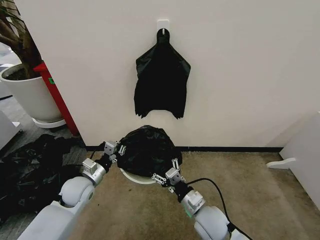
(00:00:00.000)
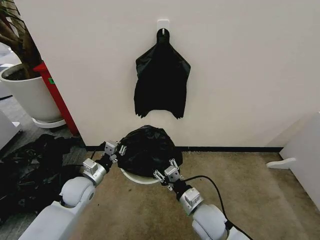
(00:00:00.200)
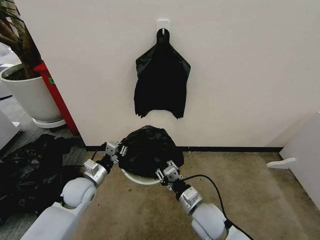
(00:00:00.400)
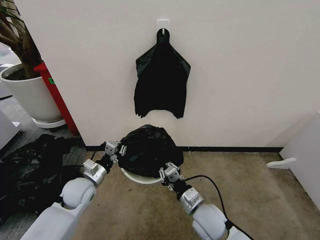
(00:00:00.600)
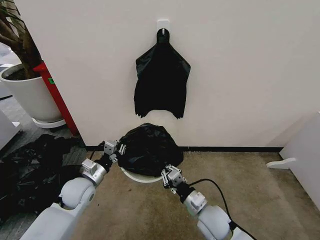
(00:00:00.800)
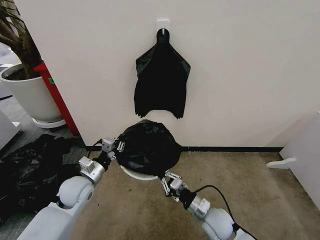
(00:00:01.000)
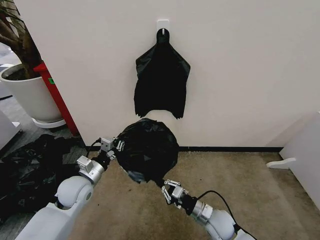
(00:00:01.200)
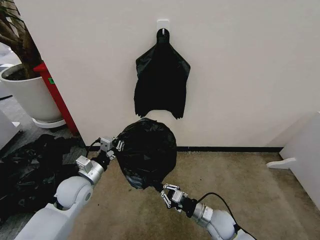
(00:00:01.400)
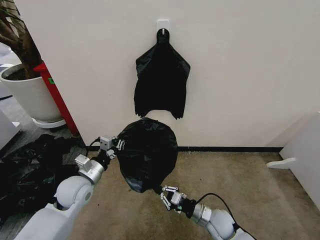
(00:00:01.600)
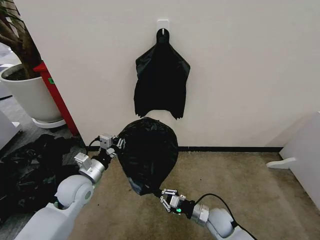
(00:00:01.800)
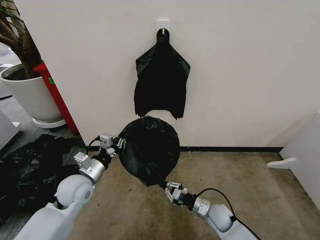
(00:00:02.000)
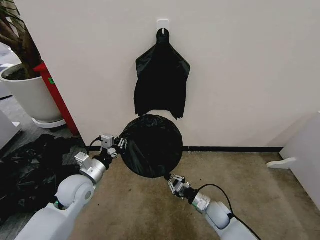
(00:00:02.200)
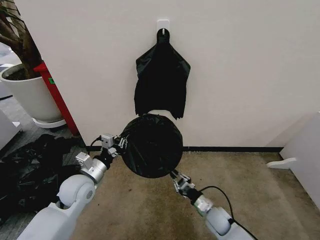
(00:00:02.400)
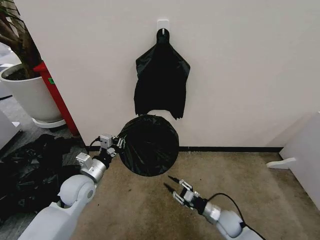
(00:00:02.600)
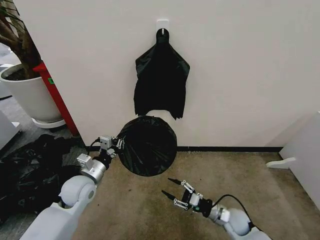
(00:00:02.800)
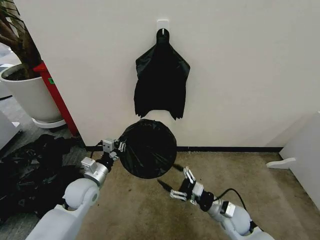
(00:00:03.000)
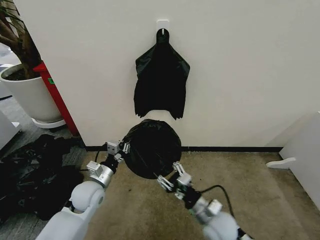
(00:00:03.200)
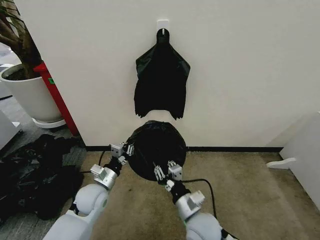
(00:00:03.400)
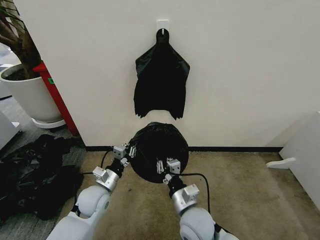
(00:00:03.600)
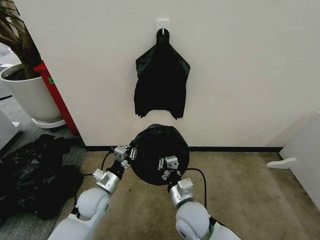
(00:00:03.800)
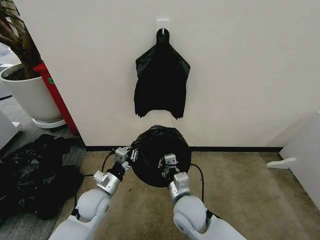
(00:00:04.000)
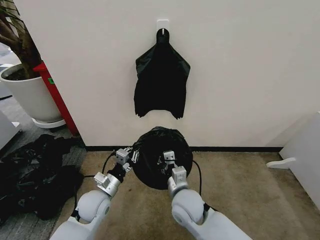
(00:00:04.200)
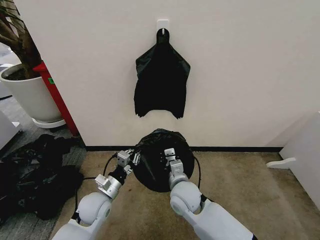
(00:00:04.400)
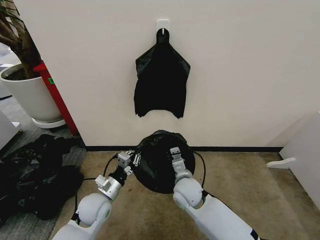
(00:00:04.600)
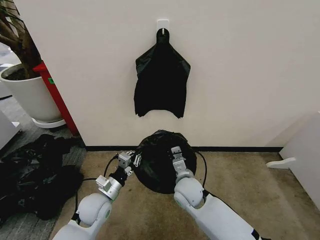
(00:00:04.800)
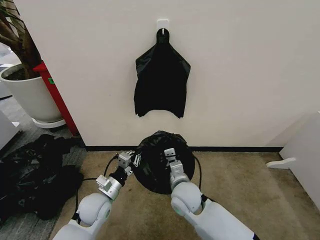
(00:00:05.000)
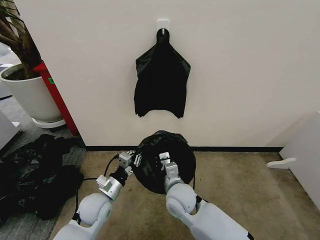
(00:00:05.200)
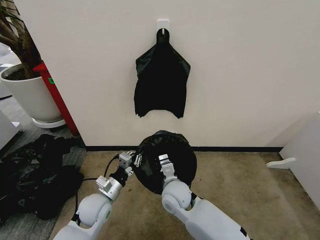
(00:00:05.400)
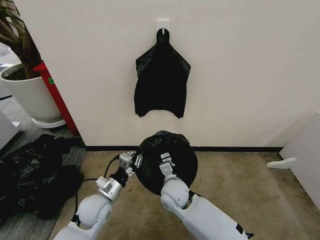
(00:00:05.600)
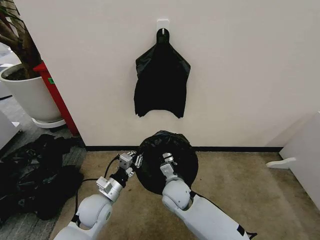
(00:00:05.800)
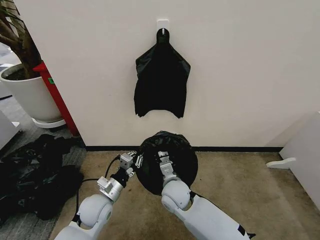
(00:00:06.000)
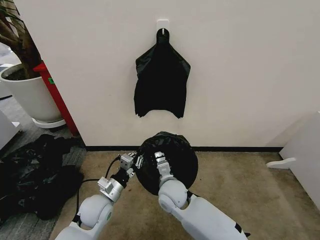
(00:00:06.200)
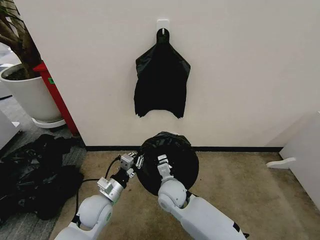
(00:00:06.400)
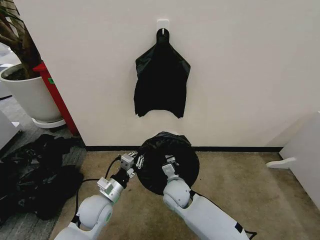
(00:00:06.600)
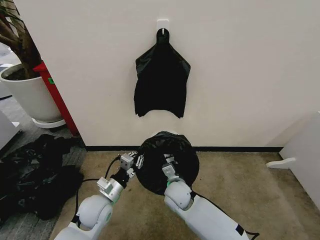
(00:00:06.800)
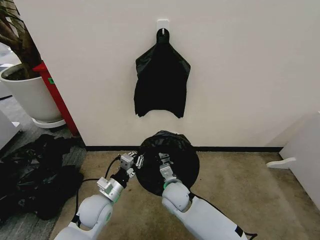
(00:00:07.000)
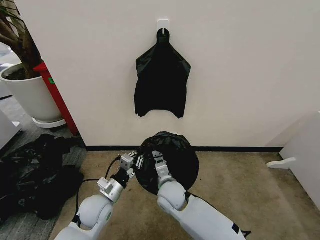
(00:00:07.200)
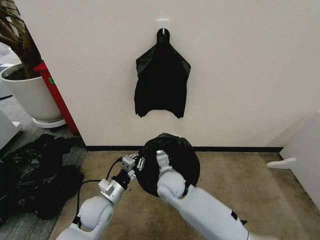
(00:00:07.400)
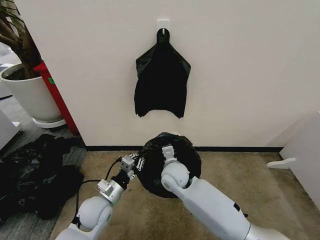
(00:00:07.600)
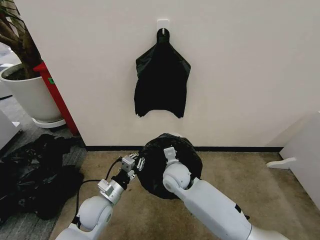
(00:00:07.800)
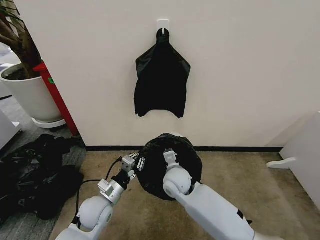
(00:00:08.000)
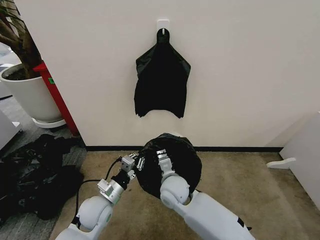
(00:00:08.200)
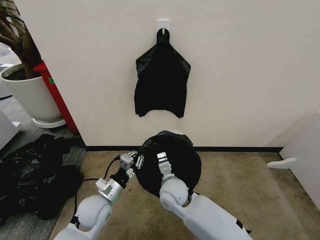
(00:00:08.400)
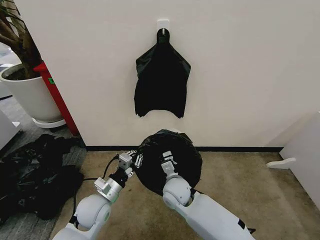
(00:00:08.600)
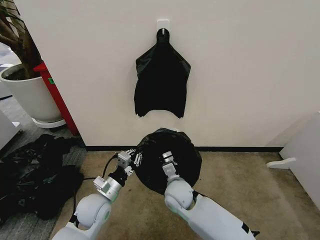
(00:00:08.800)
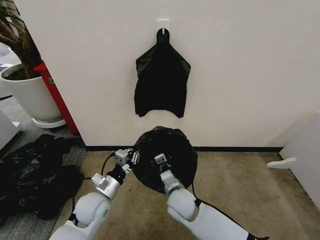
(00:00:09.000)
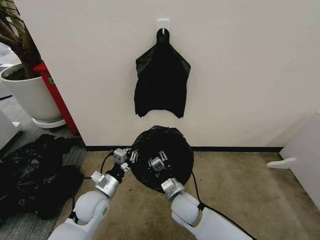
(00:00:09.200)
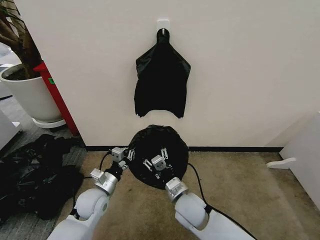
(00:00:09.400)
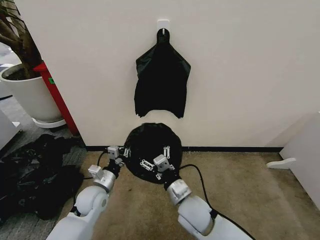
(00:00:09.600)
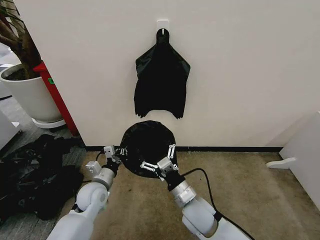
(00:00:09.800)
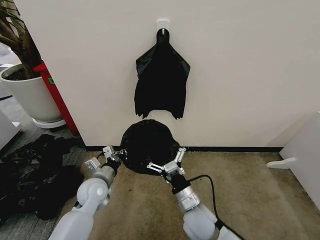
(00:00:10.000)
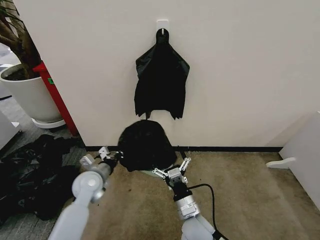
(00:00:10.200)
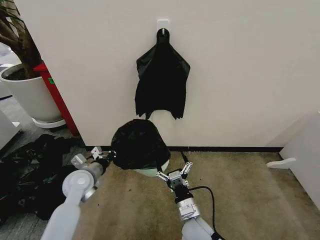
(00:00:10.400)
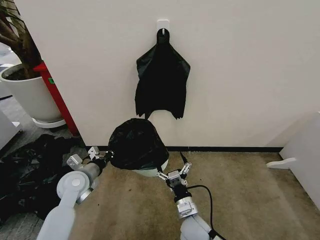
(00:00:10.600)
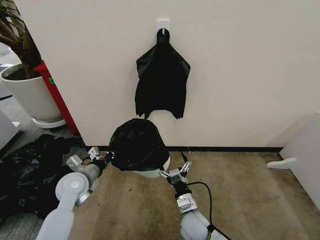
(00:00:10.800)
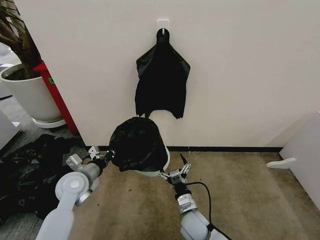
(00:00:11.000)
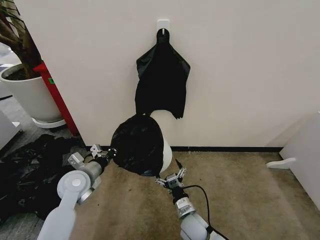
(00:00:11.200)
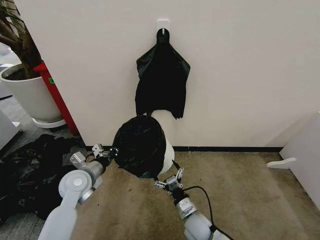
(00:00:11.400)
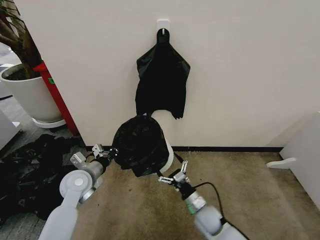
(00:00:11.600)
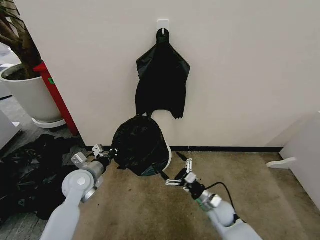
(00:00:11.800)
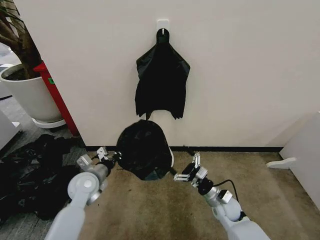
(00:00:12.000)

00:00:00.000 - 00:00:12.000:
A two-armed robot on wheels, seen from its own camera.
Task of the whole recording: Place the garbage bag over the trash bin.
00:00:00.000 - 00:00:01.600: The right gripper travels downward and to the right by roughly 10 cm, and closes up.
00:00:01.600 - 00:00:03.000: The right gripper ends up about 5 cm from where it was, and opens.
00:00:03.000 - 00:00:04.400: The right gripper goes some 20 cm to the left and upward, and closes up; the left gripper ends up about 5 cm from where it was.
00:00:06.000 - 00:00:07.600: The right gripper travels forward by some 5 cm.
00:00:07.600 - 00:00:09.000: The right gripper heads backward and downward, covering about 10 cm.
00:00:09.000 - 00:00:10.400: The right gripper moves backward, about 10 cm, and opens its fingers, while the left gripper heads forward and to the left, covering approximately 10 cm.
00:00:10.400 - 00:00:12.000: The right gripper is displaced to the right and forward by some 15 cm.

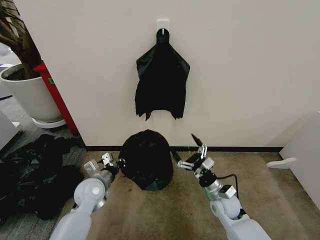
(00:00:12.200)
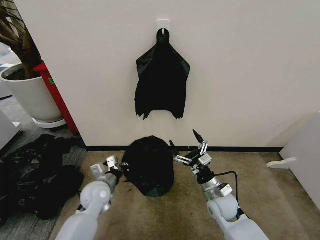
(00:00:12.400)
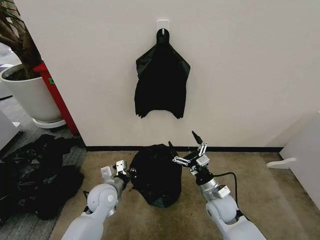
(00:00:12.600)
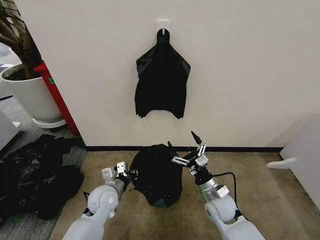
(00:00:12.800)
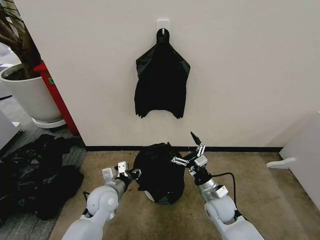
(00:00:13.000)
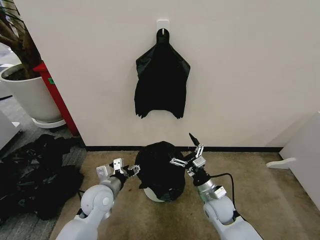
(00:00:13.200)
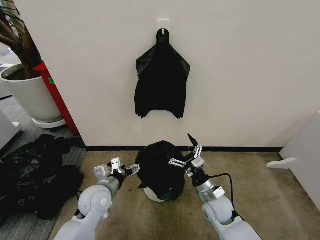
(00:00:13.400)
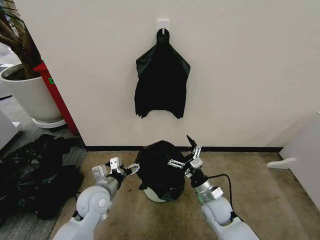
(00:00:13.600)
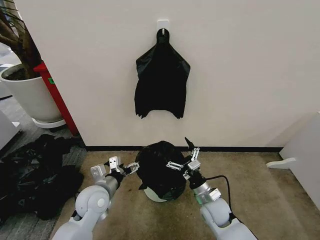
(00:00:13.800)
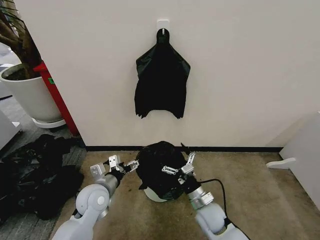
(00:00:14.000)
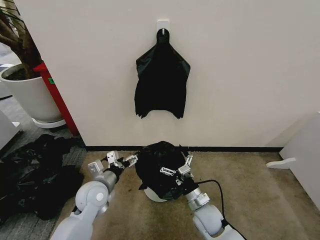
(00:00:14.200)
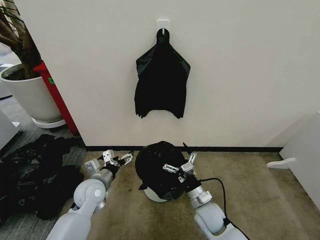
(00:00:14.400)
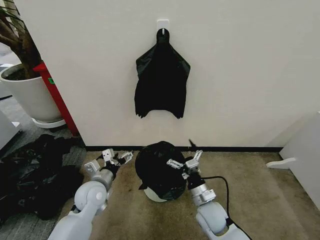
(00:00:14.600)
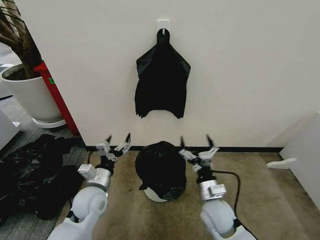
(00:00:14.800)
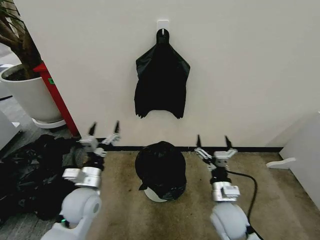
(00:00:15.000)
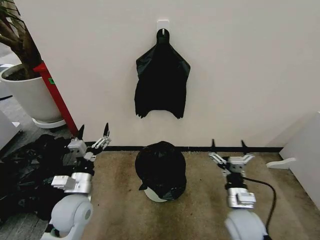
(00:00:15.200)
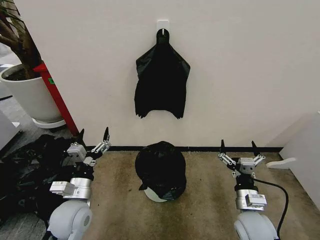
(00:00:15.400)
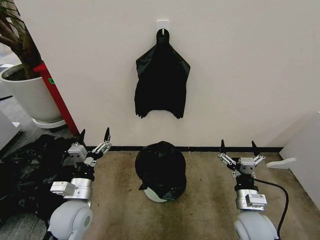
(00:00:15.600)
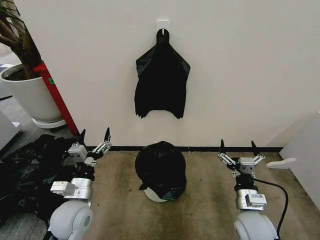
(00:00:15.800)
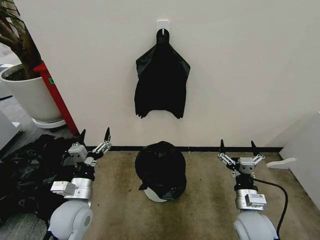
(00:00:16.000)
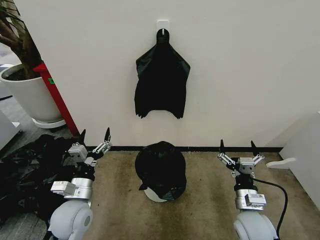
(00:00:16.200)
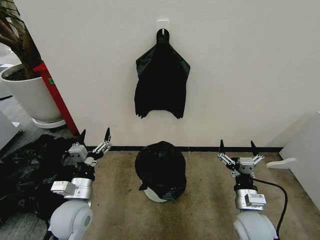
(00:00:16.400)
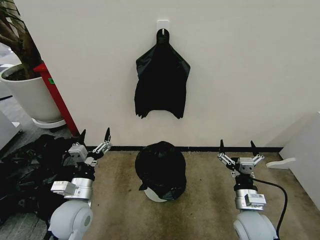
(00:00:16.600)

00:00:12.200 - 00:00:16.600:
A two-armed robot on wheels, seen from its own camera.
Task of the whole recording: Place the garbage bag over the trash bin.
00:00:12.200 - 00:00:13.600: The left gripper changes place by about 5 cm, and opens up.
00:00:13.600 - 00:00:15.200: The left gripper ends up about 5 cm from where it was. Meanwhile the right gripper heads backward, upward and to the right, covering approximately 10 cm.
00:00:15.200 - 00:00:16.600: The grippers make only small movements.
